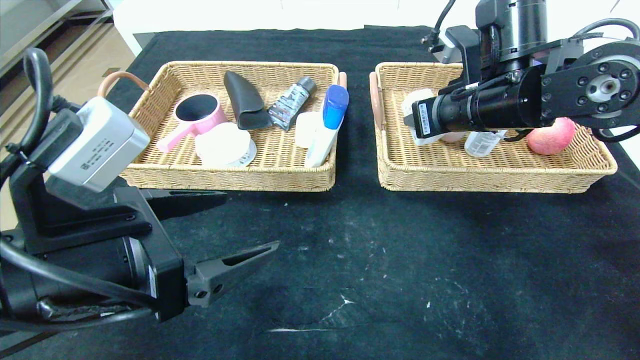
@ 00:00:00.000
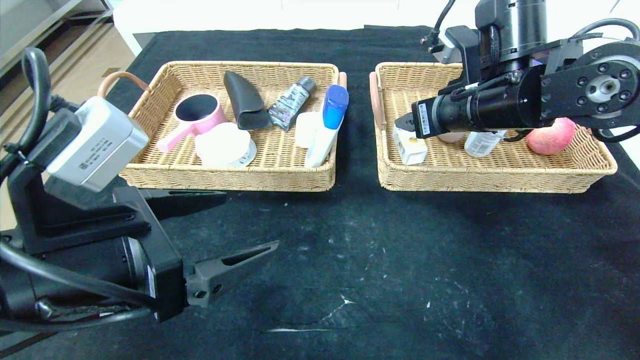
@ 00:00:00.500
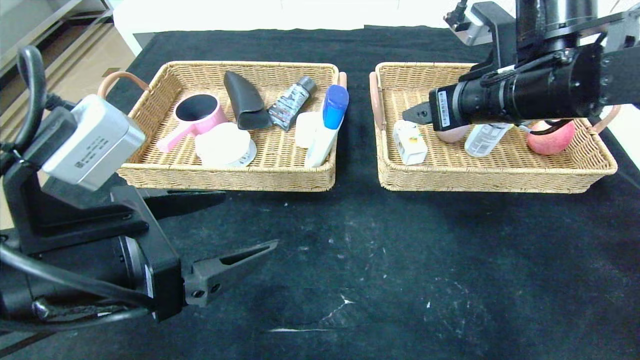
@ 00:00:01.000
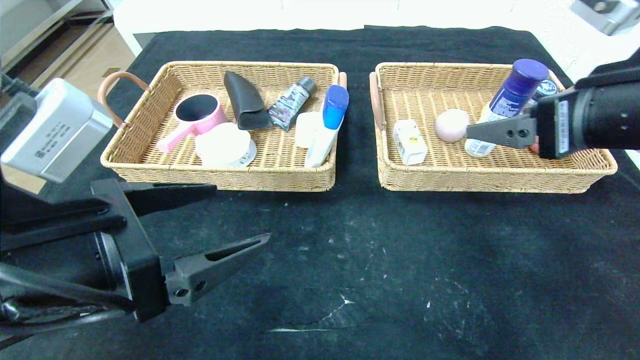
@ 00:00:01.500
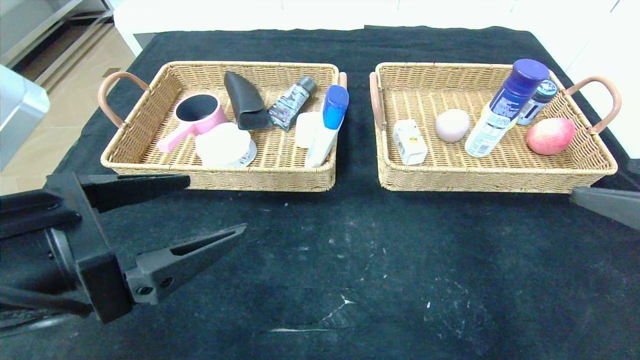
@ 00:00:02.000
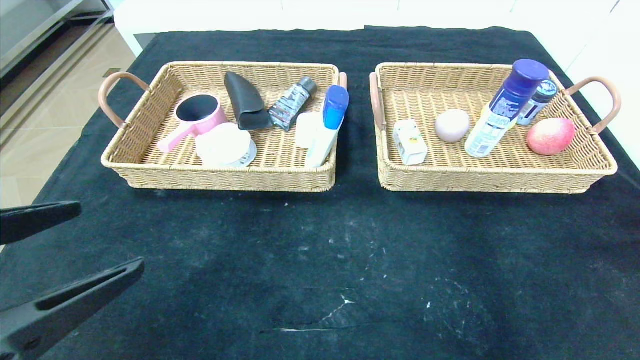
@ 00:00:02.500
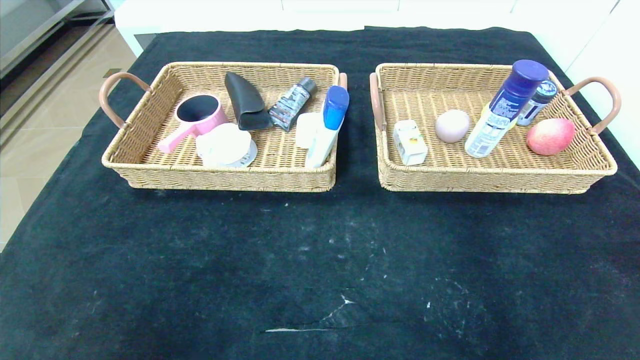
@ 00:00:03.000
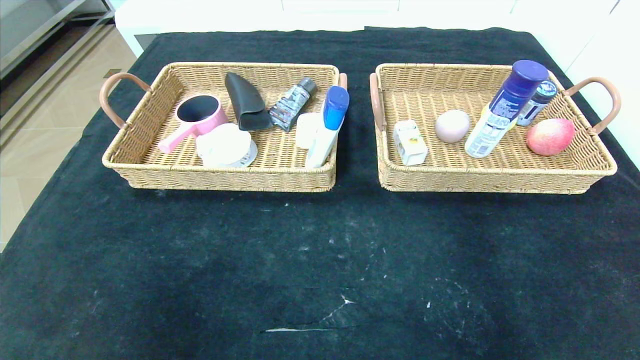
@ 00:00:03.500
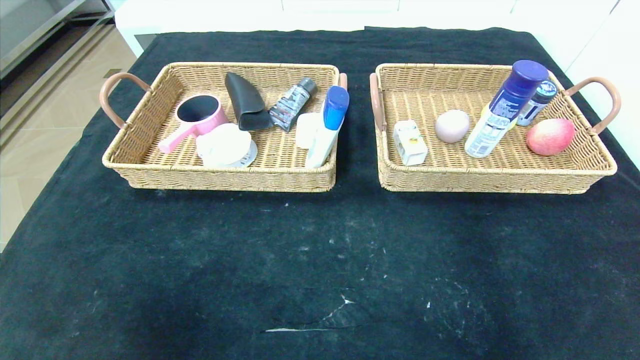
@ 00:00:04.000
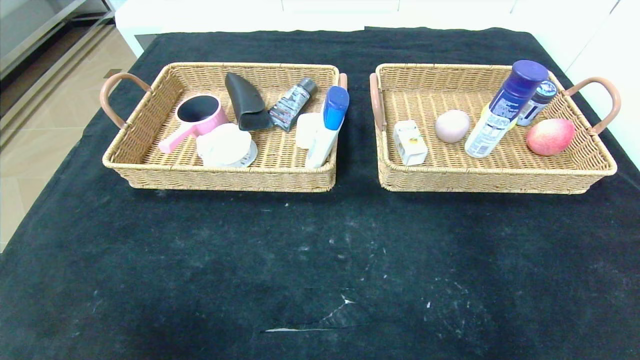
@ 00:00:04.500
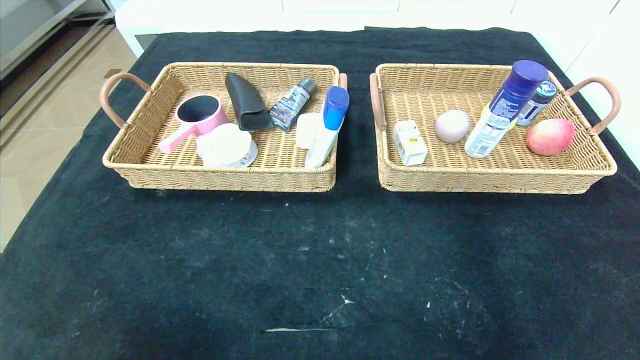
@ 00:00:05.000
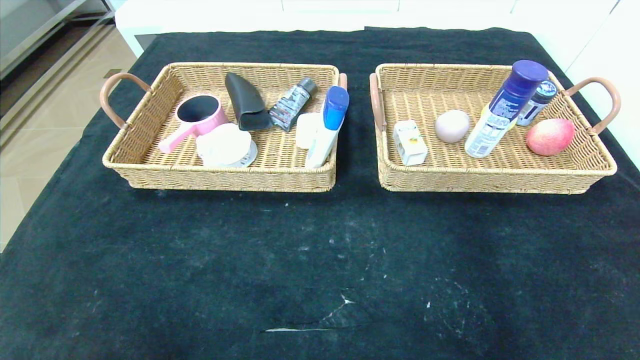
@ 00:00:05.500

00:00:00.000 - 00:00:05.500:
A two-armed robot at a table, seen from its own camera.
00:00:00.000 - 00:00:02.000: The right gripper is displaced backward and to the right by some 25 cm, and opens up.
00:00:02.000 - 00:00:03.500: The right gripper is displaced backward and downward by about 20 cm, while the left gripper travels backward and to the left by roughly 20 cm.

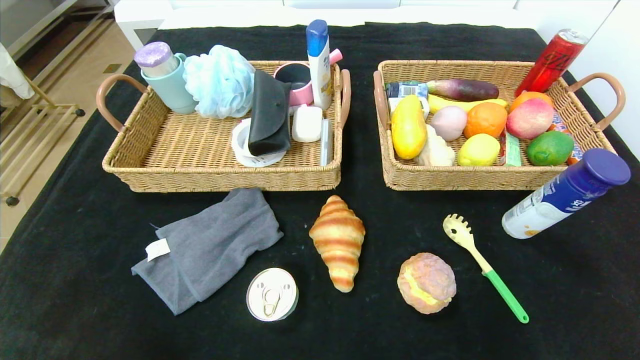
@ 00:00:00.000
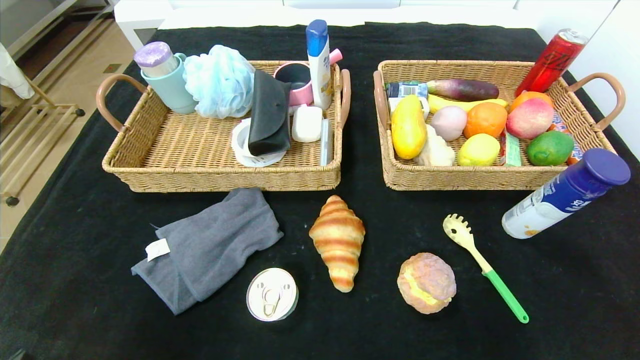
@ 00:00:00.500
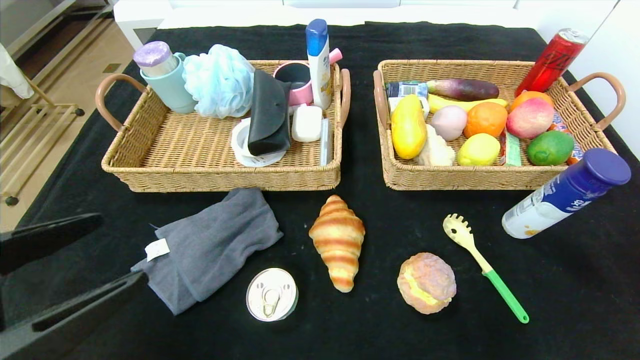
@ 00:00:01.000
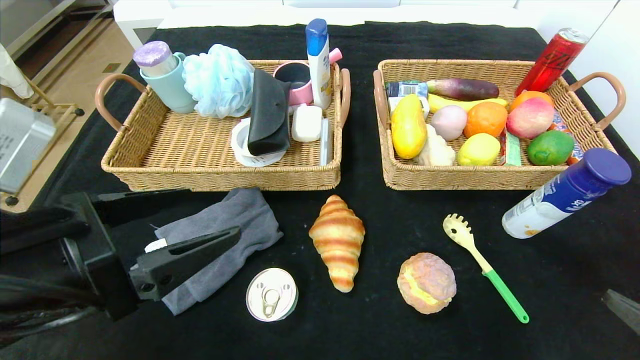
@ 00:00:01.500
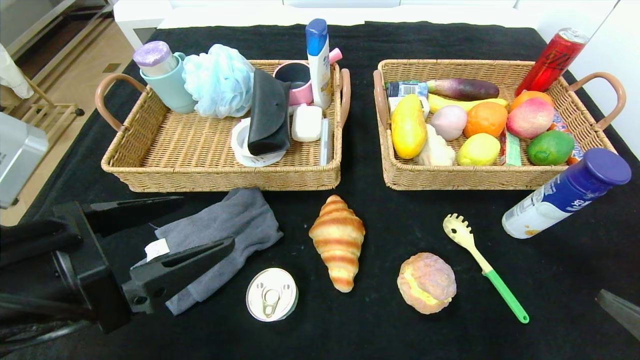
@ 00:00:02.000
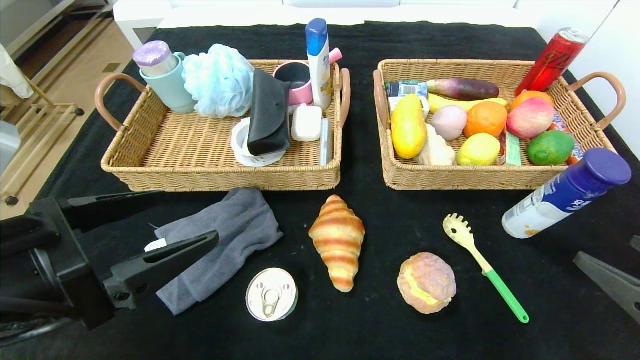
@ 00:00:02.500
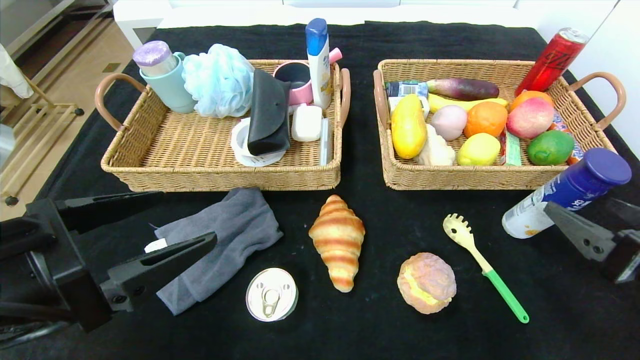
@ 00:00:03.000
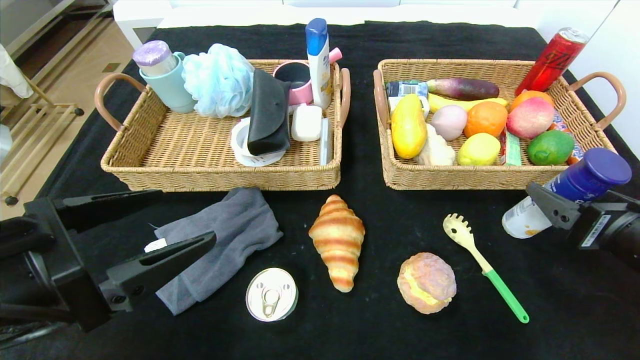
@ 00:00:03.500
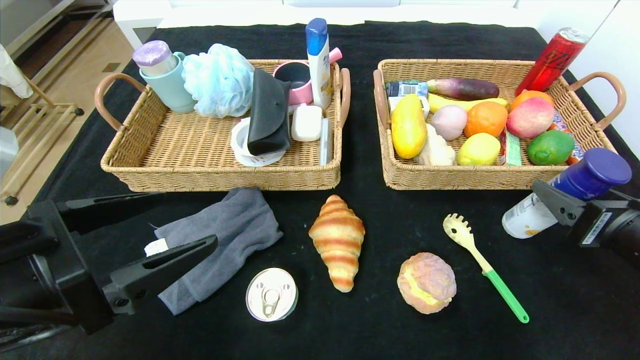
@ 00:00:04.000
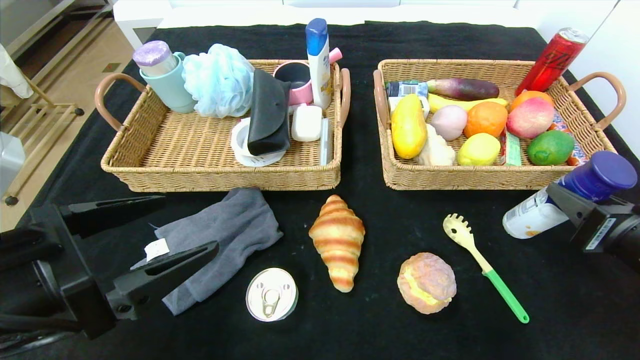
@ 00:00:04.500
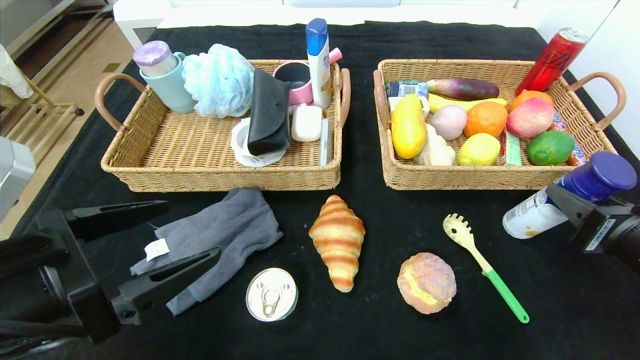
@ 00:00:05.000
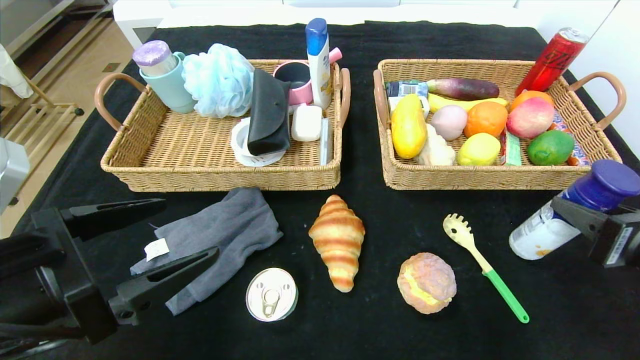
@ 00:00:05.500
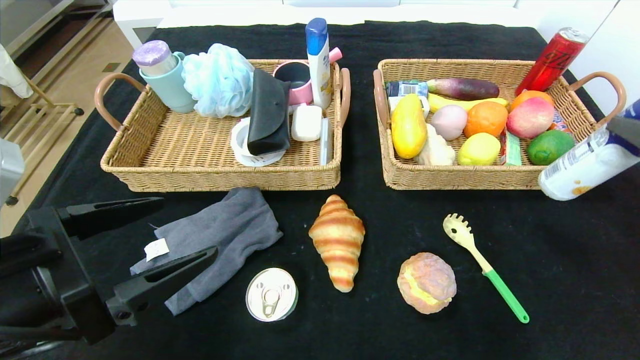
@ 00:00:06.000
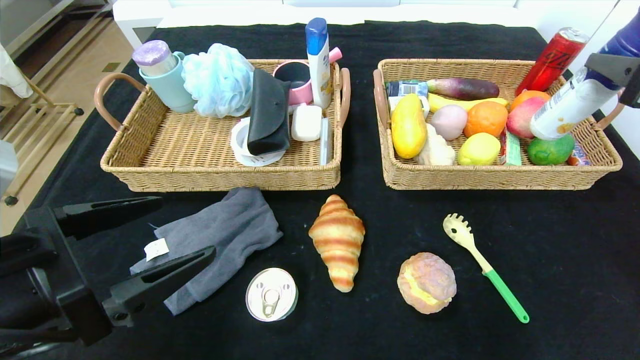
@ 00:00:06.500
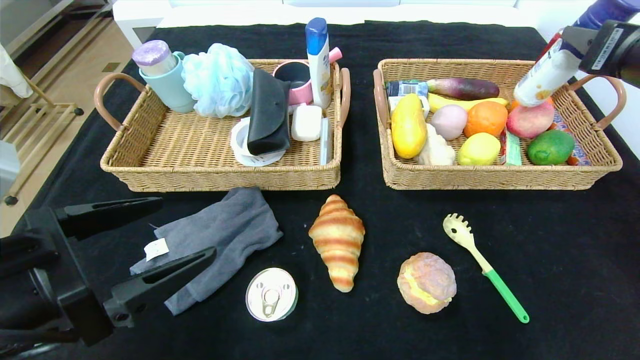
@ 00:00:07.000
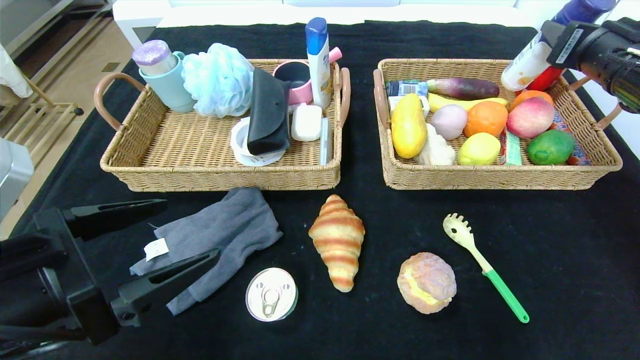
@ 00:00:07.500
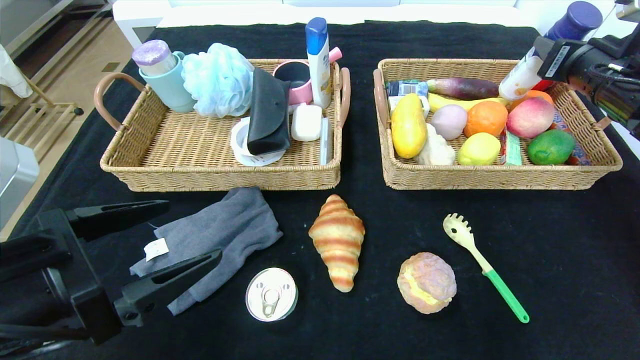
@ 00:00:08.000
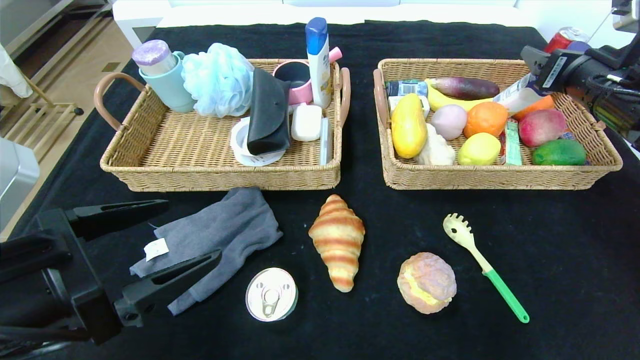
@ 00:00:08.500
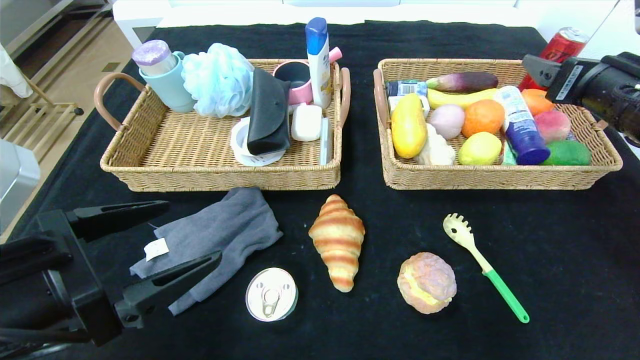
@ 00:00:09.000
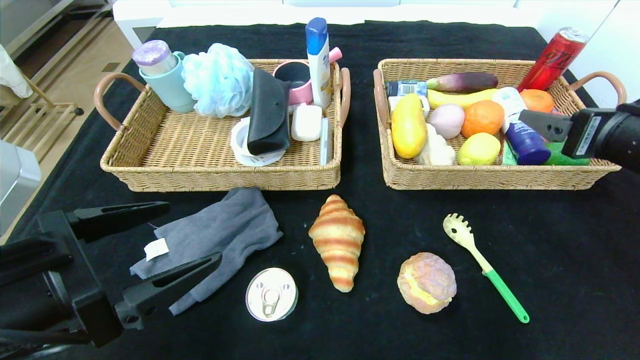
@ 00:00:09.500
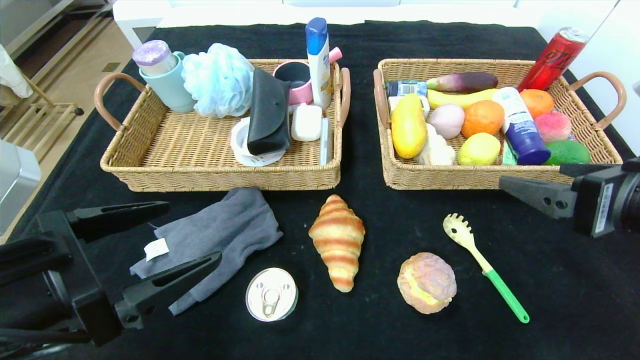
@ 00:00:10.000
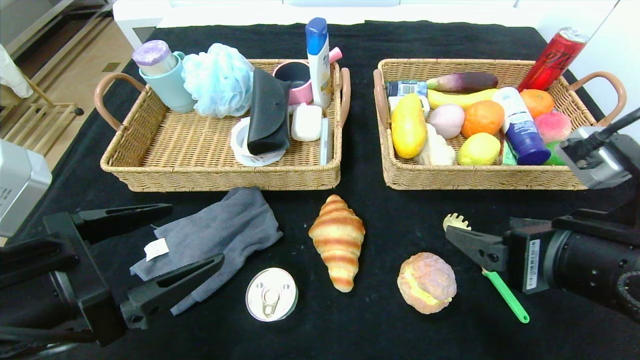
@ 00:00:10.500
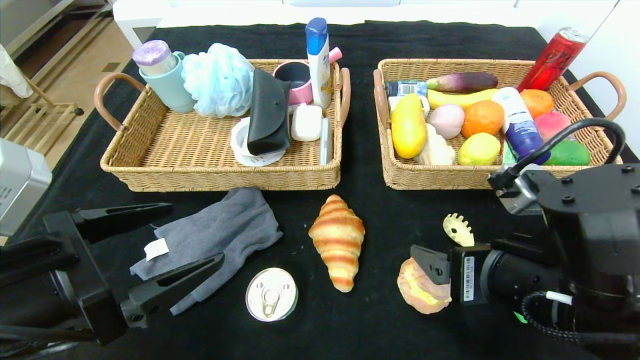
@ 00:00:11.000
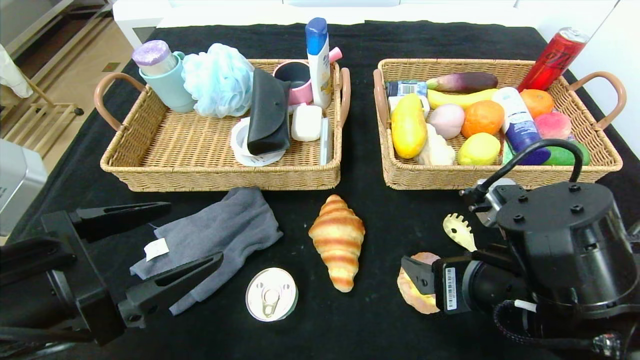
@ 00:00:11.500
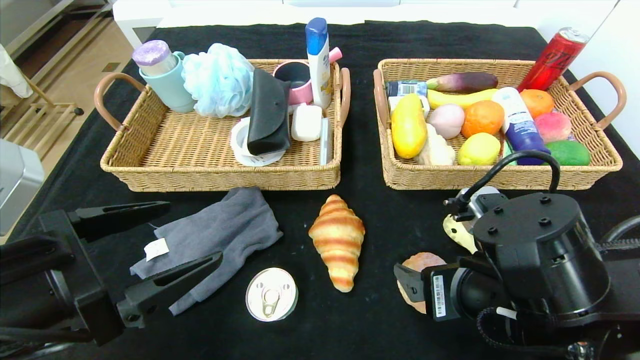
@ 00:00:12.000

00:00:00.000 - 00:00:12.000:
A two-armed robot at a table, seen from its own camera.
Step, 00:00:00.000 - 00:00:08.500: Grasp the yogurt and put it in the right basket.
00:00:00.000 - 00:00:02.000: The right gripper is displaced upward and forward by about 15 cm, while the left gripper travels upward, forward and to the right by some 25 cm.
00:00:02.000 - 00:00:04.000: The right gripper shifts about 10 cm forward.
00:00:04.000 - 00:00:06.000: The right gripper shifts approximately 10 cm upward, and closes.
00:00:06.000 - 00:00:08.000: The right gripper is displaced forward by some 20 cm.
00:00:08.000 - 00:00:10.000: The right gripper goes roughly 20 cm backward, and opens up.
00:00:10.000 - 00:00:12.000: The right gripper is displaced to the left and downward by approximately 15 cm.

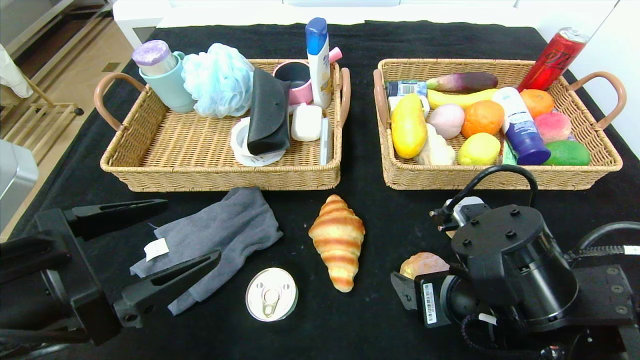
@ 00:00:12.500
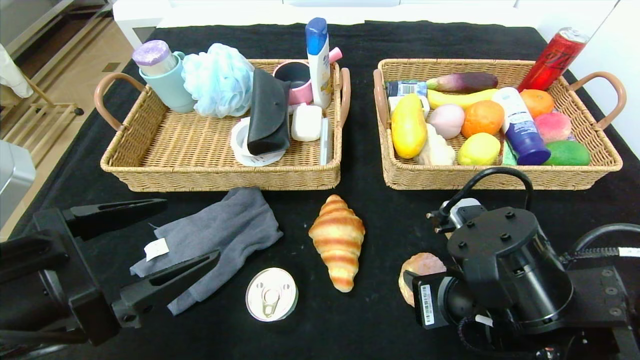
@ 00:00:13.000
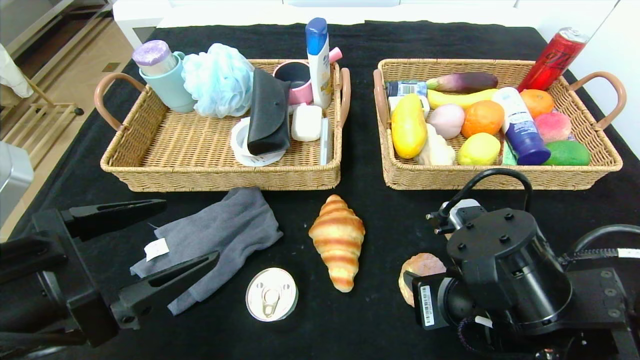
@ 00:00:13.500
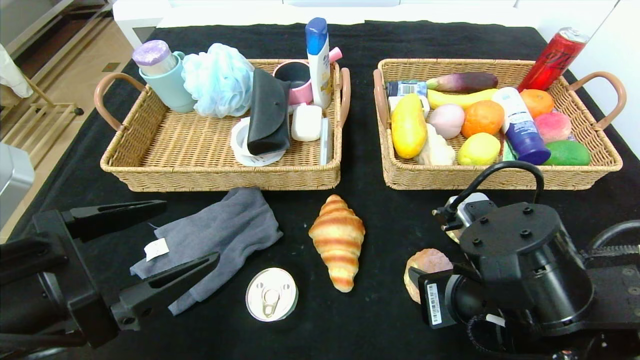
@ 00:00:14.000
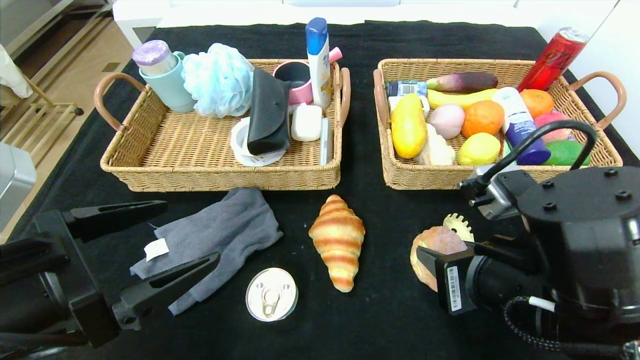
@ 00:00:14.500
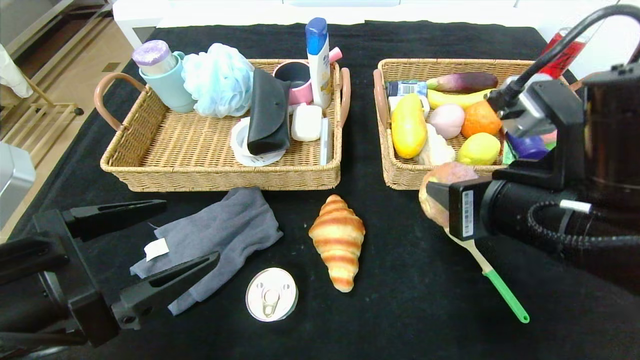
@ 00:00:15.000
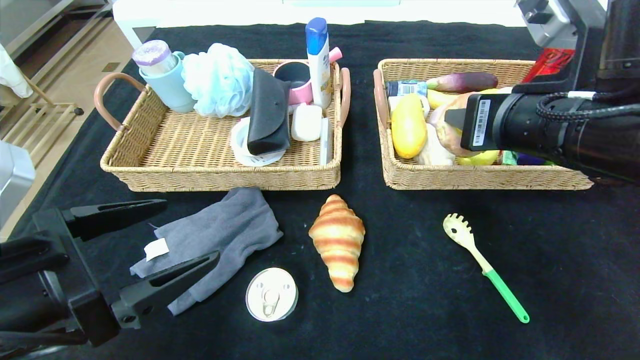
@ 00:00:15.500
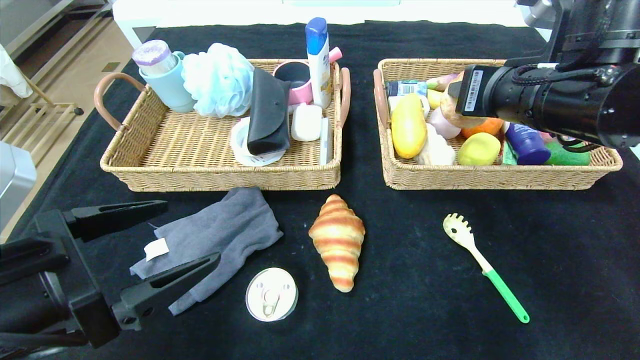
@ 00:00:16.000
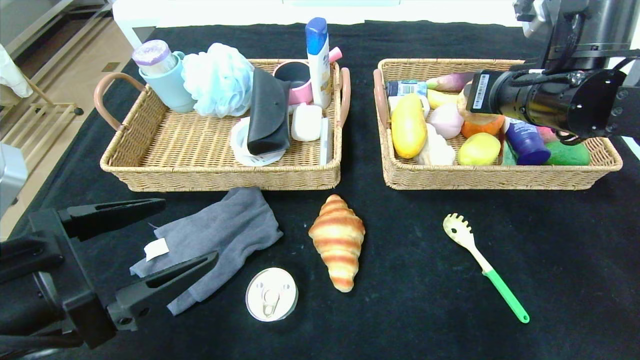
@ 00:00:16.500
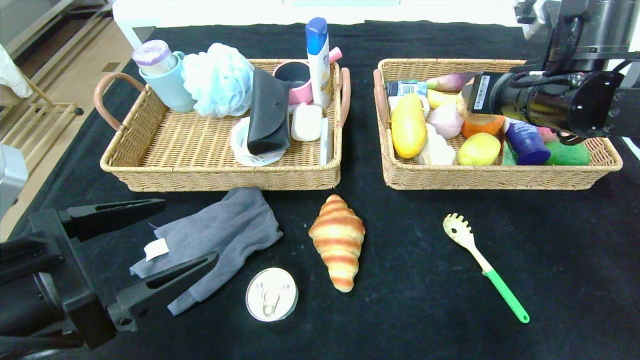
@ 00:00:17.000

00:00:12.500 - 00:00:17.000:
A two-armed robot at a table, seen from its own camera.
00:00:12.500 - 00:00:14.500: The right gripper closes.
00:00:14.500 - 00:00:17.000: The right gripper is displaced forward, upward and to the right by some 20 cm.
